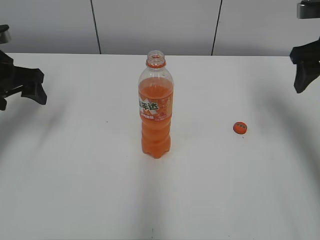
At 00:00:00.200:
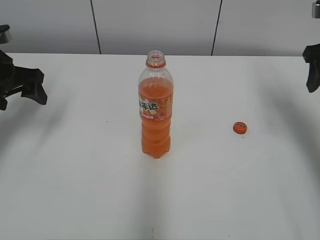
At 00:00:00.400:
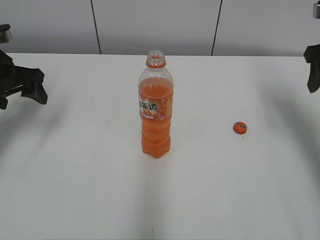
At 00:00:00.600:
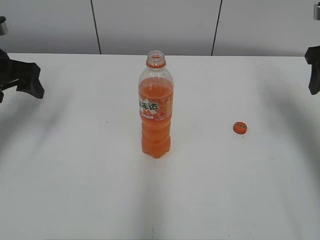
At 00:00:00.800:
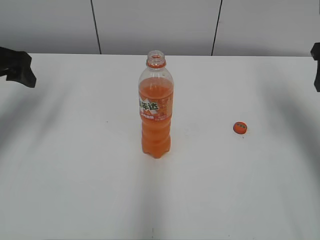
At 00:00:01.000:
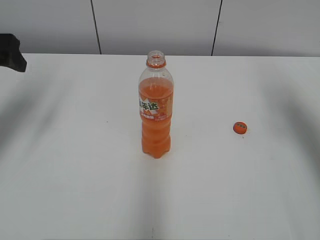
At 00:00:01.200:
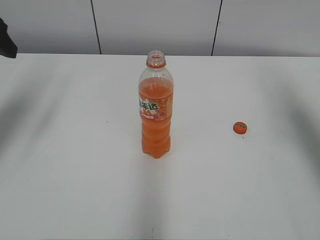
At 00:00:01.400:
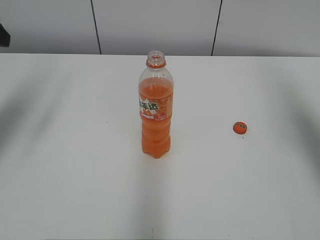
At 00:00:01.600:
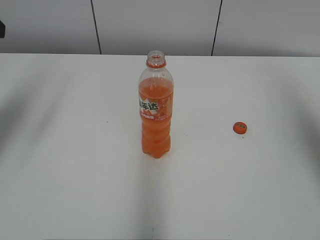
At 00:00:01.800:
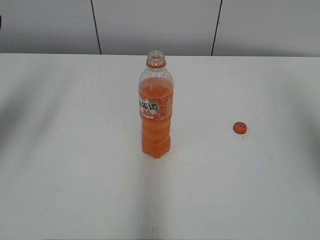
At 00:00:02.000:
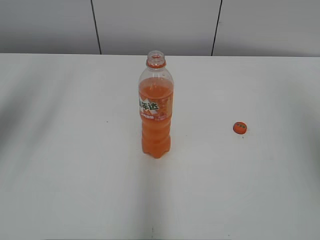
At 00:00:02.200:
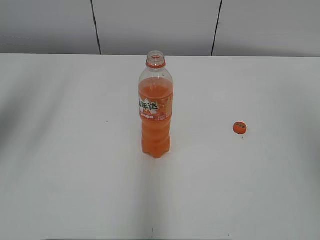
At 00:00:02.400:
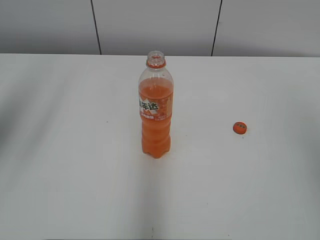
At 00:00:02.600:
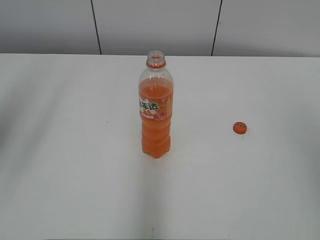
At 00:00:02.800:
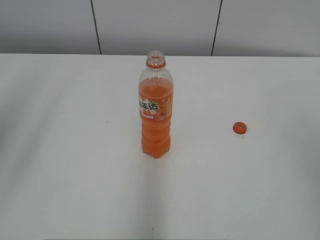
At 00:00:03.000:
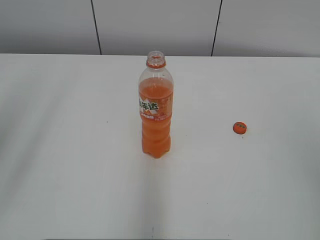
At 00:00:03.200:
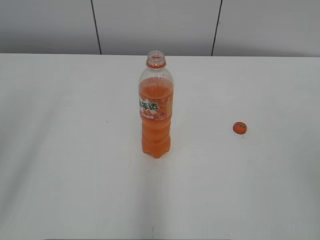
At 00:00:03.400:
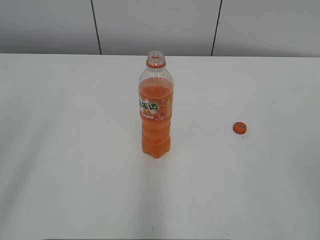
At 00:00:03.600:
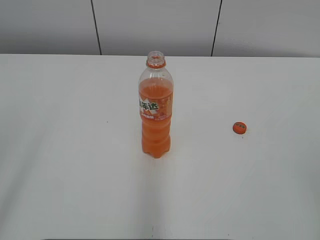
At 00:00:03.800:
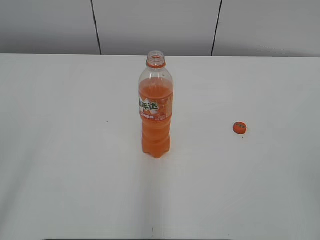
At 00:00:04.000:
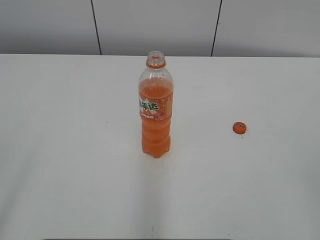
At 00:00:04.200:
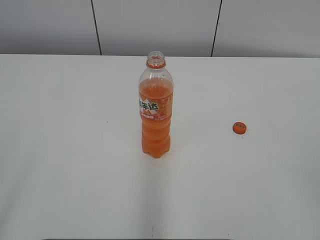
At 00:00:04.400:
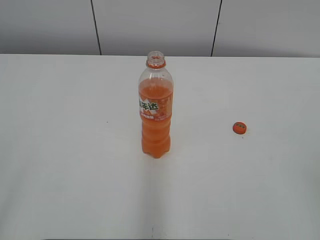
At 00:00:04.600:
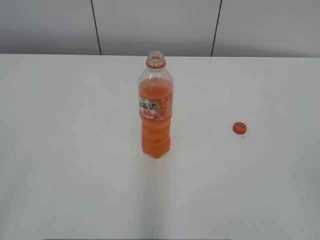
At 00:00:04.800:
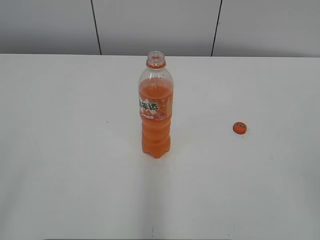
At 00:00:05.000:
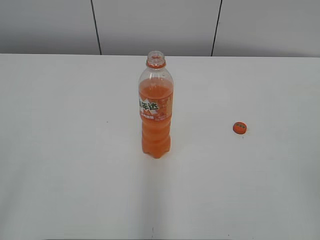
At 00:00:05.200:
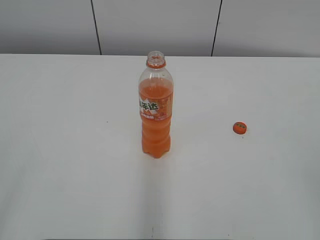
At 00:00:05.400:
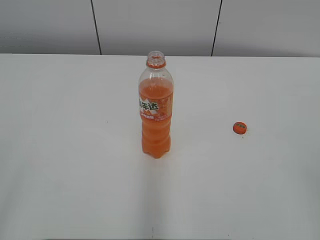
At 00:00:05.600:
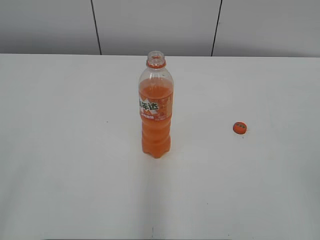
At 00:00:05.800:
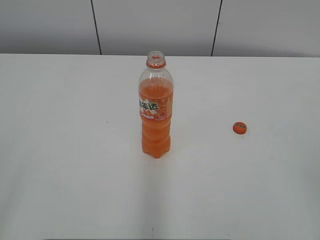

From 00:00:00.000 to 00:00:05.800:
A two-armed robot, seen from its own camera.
From 00:00:00.000 to 00:00:01.400: Both grippers travel together upward and backward, approximately 15 cm.
From 00:00:01.400 to 00:00:02.800: The right gripper shifts approximately 20 cm backward.
From 00:00:02.800 to 00:00:04.400: The left gripper goes some 20 cm backward and downward.
From 00:00:04.400 to 00:00:05.800: Both grippers stay about where they are.
